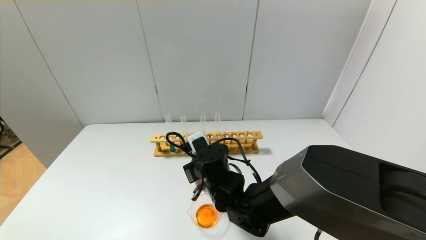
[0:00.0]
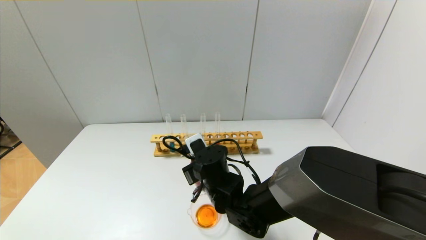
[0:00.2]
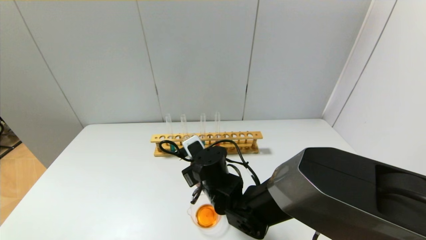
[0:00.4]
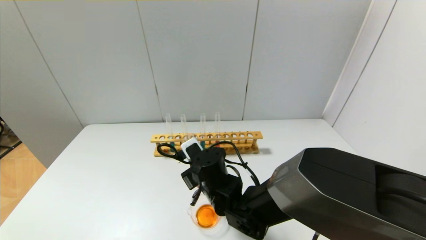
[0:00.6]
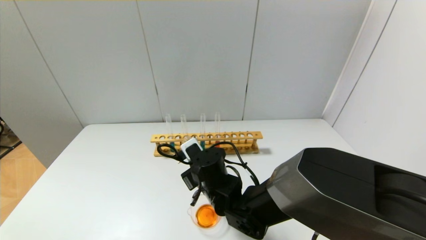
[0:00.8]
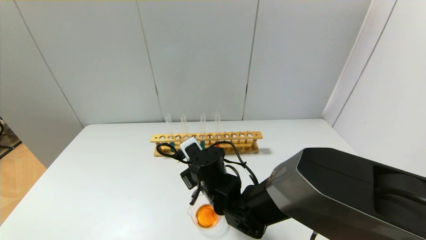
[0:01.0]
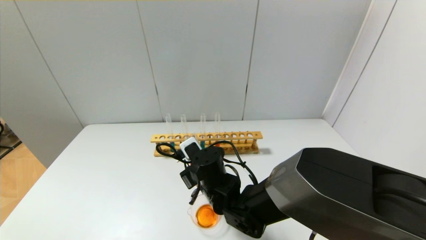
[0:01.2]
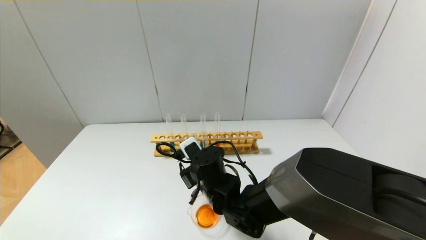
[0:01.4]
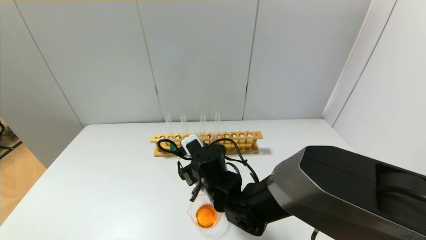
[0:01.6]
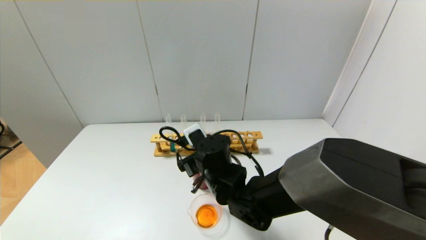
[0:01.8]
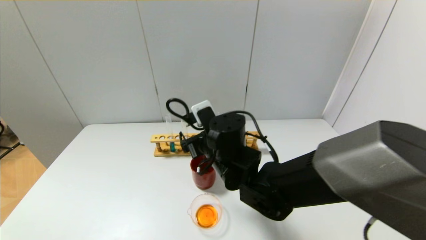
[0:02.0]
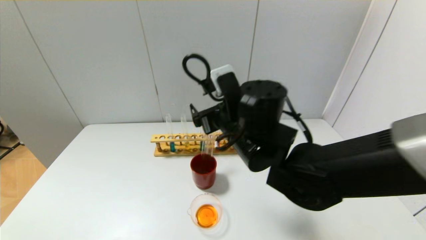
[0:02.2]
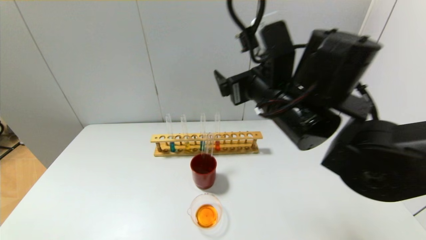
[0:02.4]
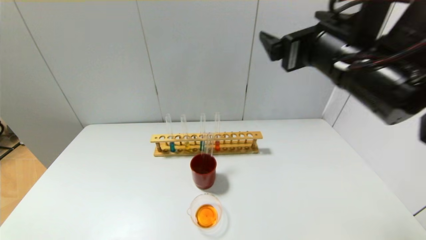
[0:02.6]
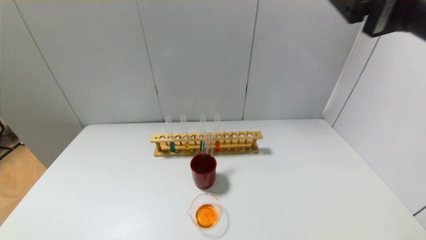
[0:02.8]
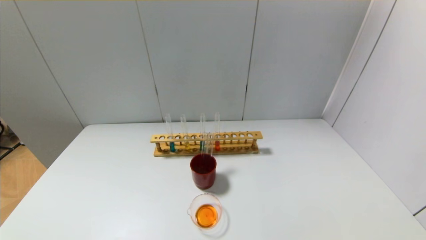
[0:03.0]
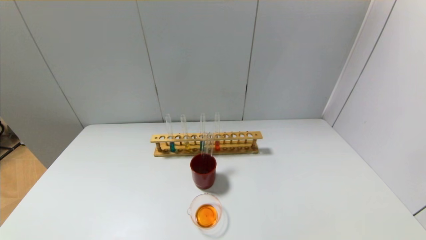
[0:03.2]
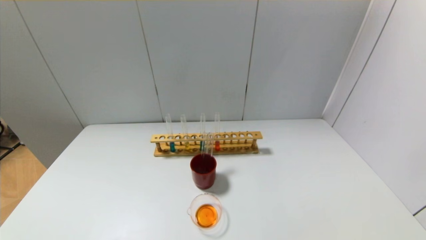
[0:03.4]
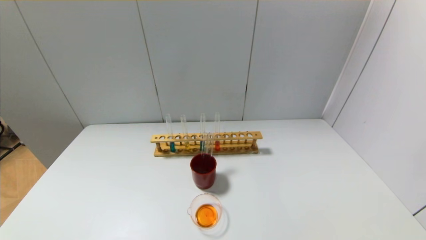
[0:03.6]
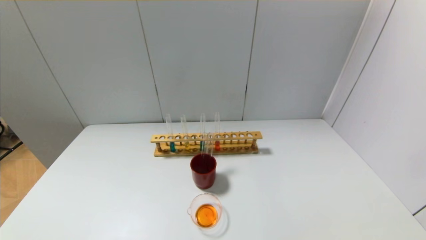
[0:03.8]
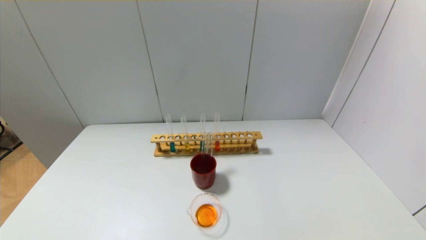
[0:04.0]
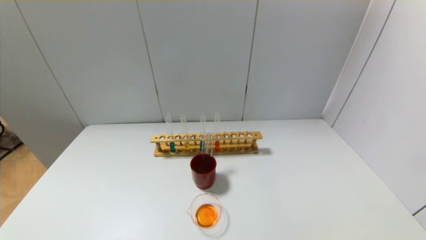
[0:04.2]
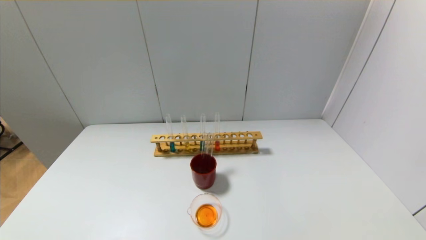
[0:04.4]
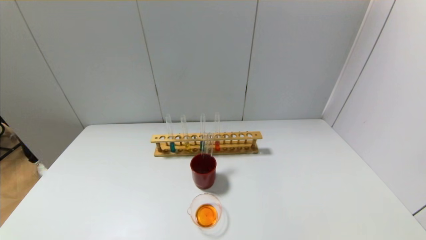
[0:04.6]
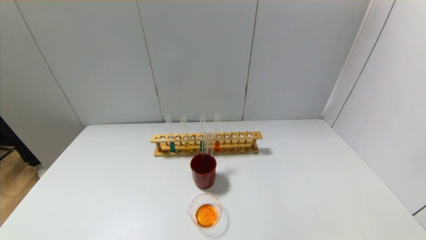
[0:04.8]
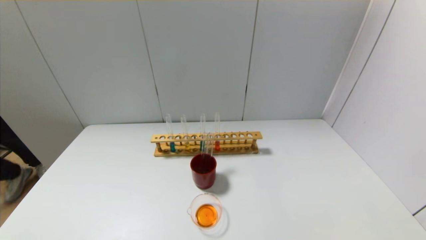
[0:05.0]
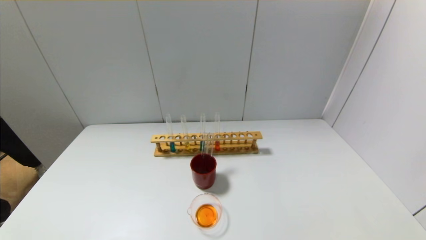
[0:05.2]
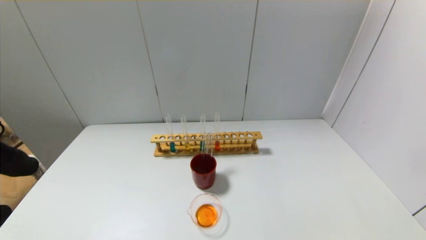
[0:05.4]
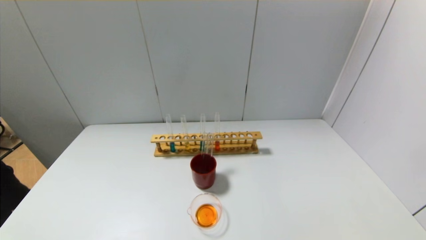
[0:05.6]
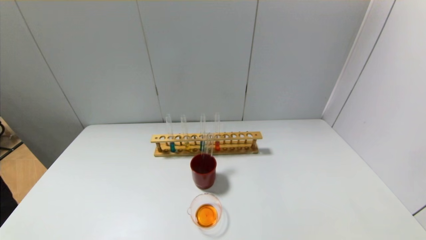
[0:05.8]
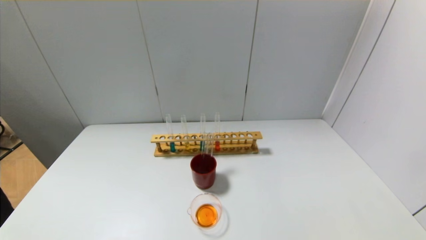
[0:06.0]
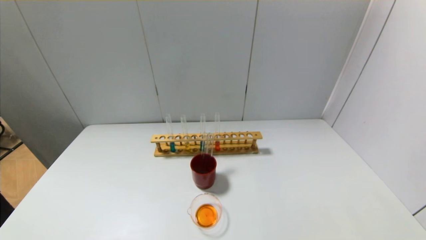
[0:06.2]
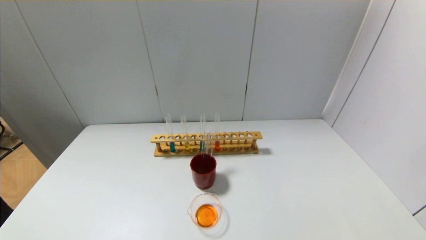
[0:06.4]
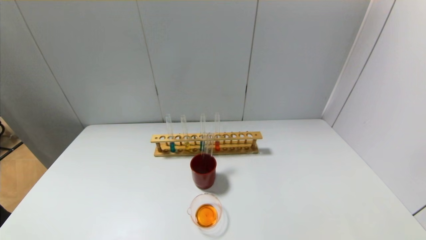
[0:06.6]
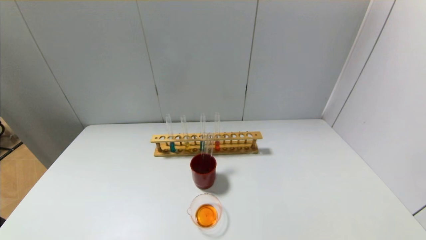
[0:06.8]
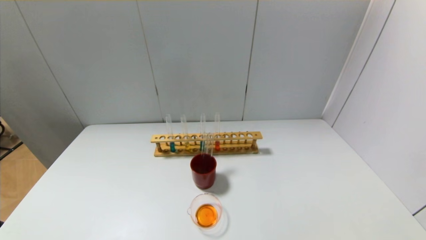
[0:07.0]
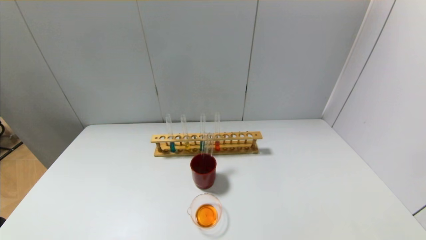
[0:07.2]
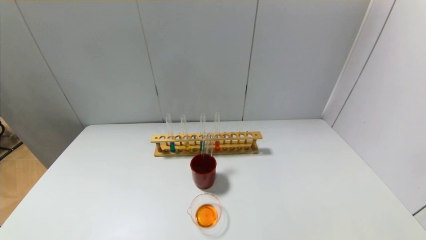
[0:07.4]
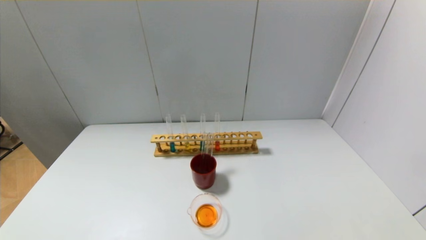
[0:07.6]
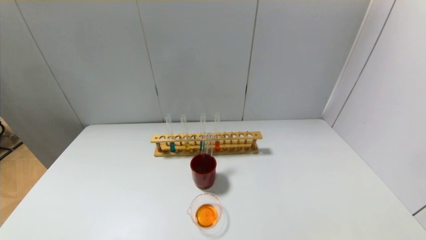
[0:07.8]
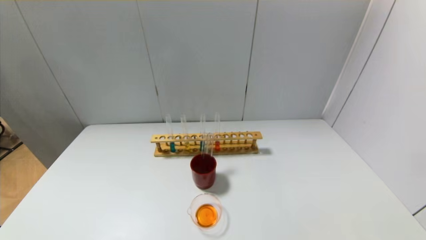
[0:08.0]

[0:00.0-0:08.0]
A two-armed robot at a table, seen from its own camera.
0:00.0 to 0:01.6: The right gripper opens its fingers.
0:01.6 to 0:03.2: The right gripper shifts roughly 50 cm upward, to the right and backward.

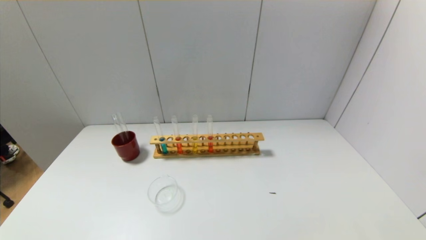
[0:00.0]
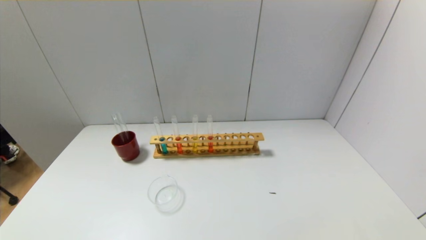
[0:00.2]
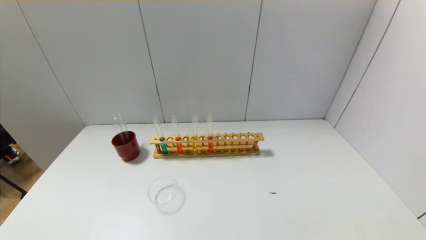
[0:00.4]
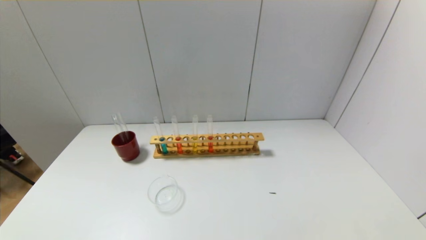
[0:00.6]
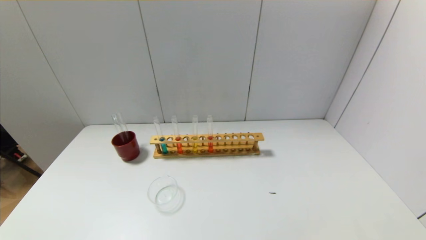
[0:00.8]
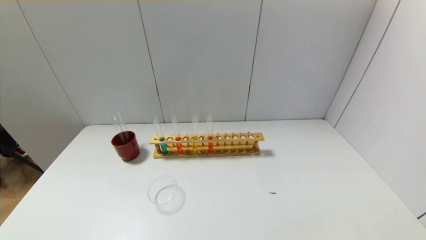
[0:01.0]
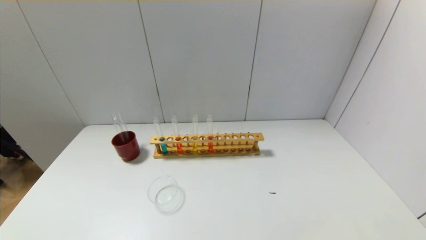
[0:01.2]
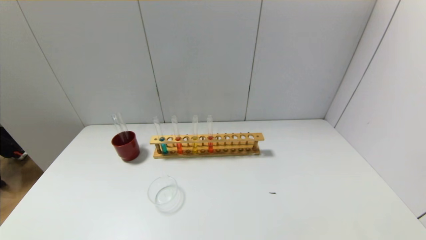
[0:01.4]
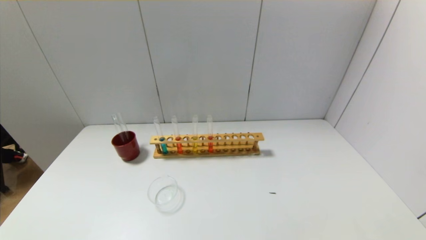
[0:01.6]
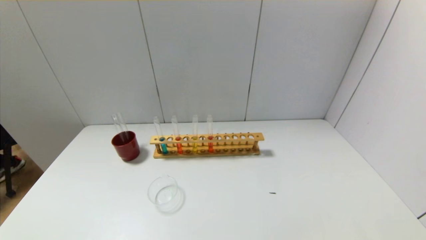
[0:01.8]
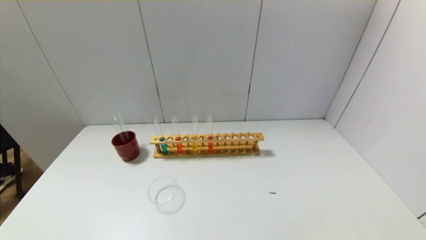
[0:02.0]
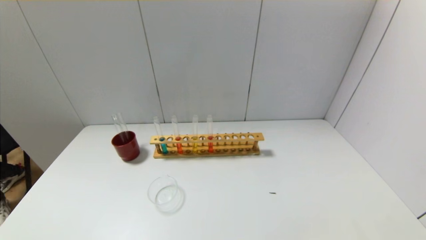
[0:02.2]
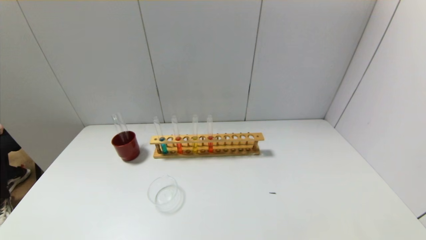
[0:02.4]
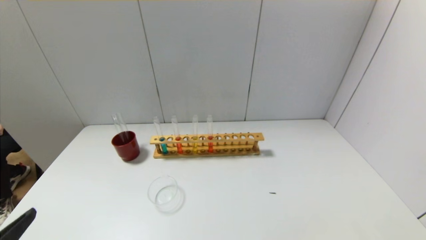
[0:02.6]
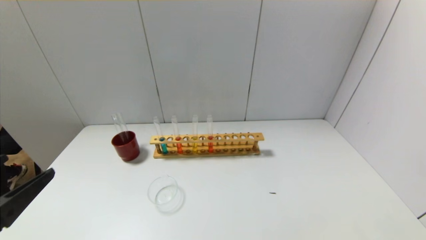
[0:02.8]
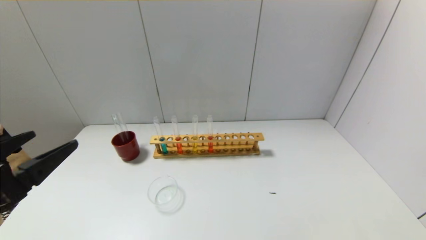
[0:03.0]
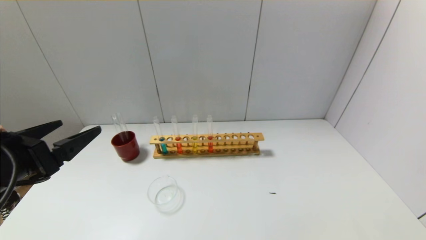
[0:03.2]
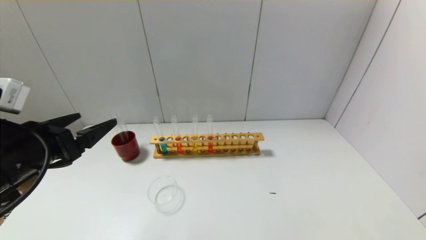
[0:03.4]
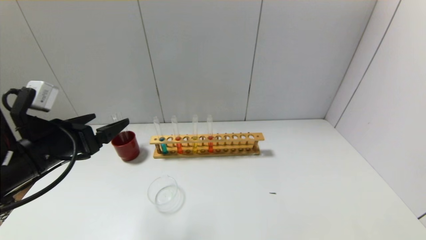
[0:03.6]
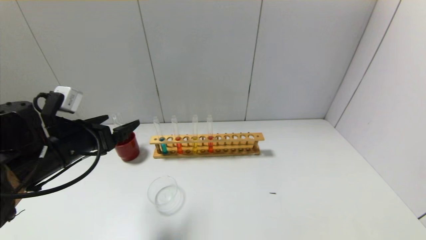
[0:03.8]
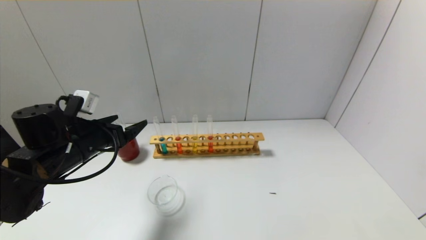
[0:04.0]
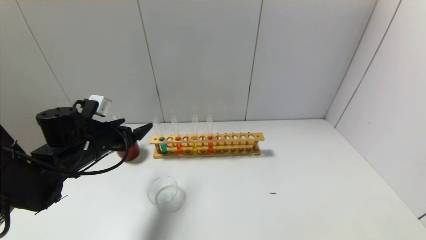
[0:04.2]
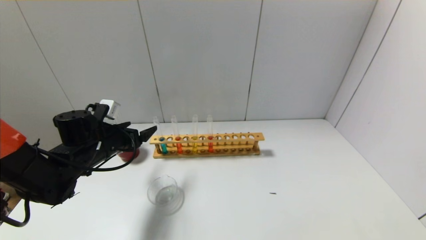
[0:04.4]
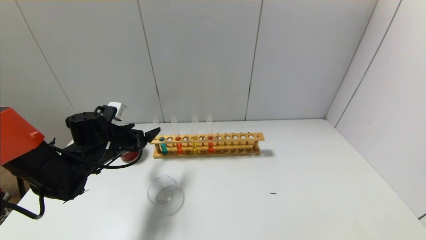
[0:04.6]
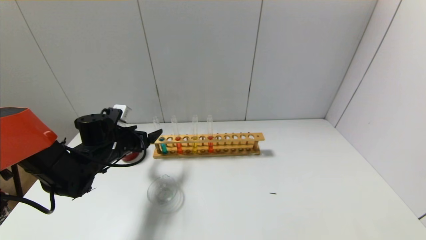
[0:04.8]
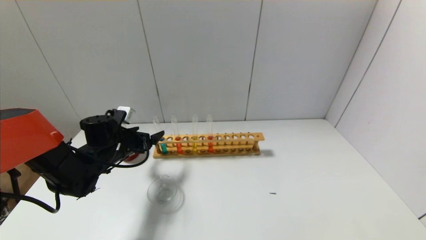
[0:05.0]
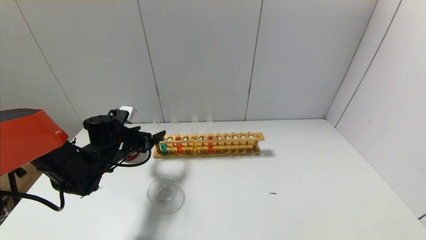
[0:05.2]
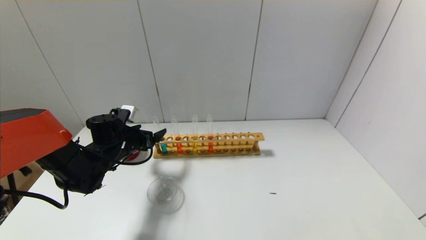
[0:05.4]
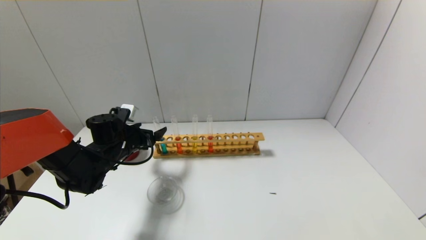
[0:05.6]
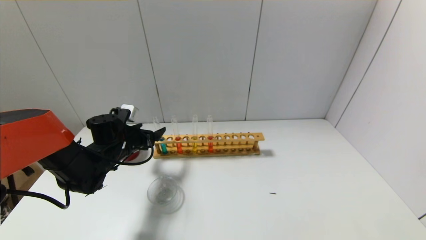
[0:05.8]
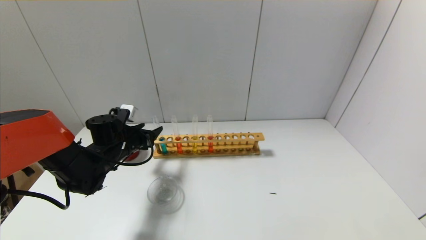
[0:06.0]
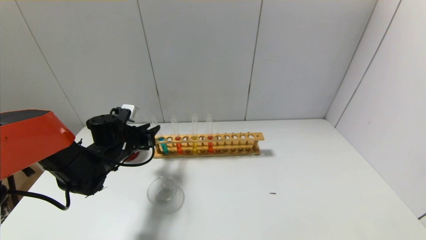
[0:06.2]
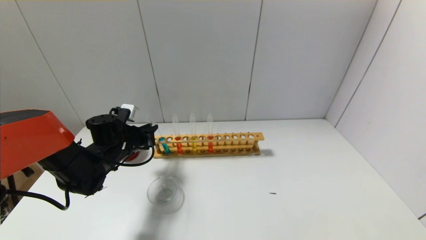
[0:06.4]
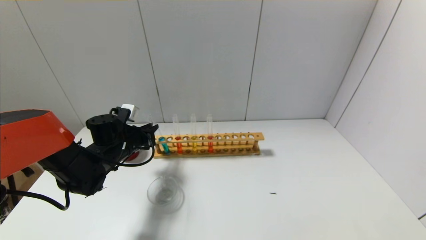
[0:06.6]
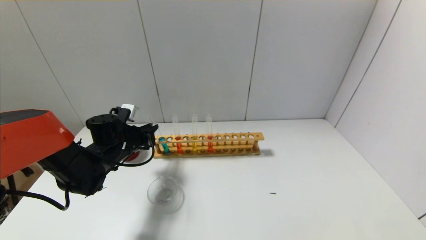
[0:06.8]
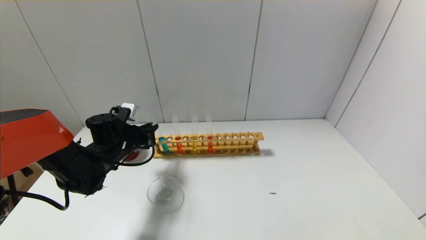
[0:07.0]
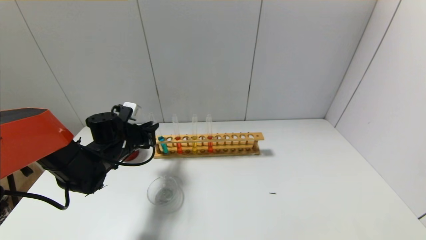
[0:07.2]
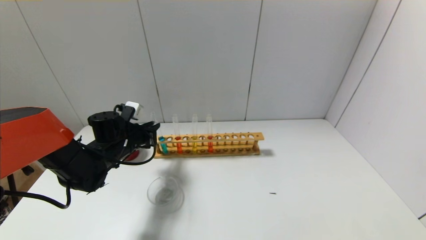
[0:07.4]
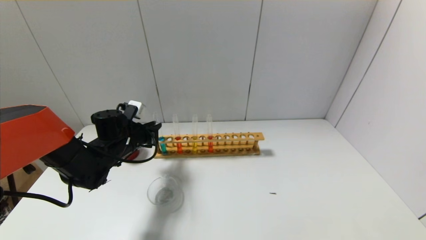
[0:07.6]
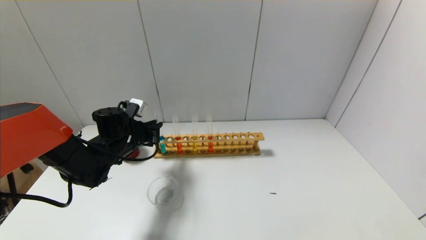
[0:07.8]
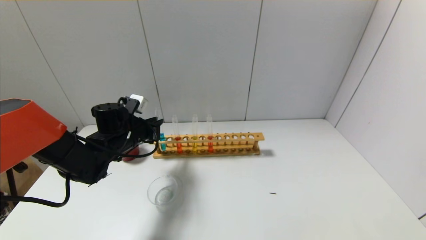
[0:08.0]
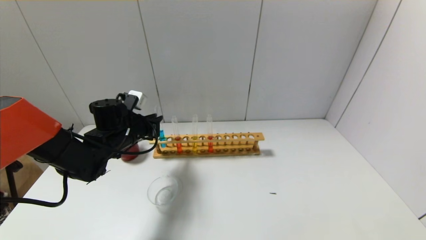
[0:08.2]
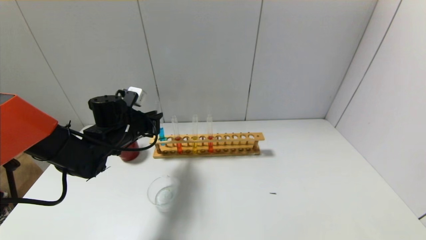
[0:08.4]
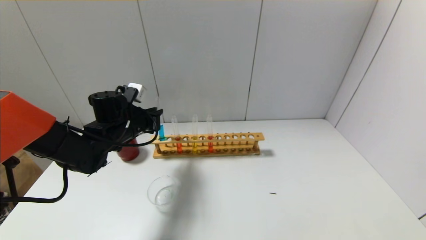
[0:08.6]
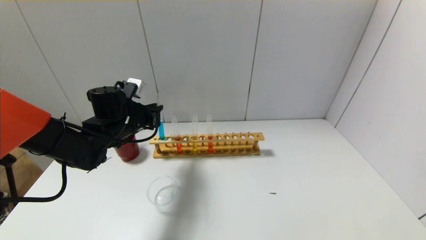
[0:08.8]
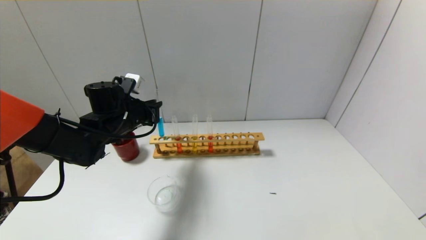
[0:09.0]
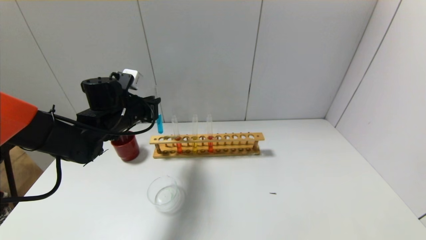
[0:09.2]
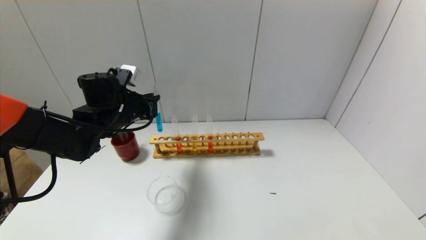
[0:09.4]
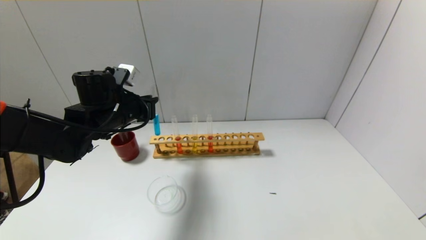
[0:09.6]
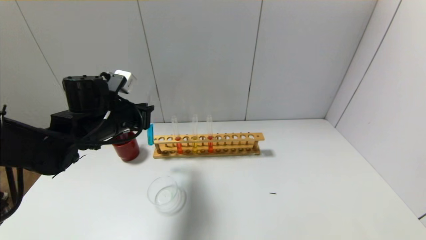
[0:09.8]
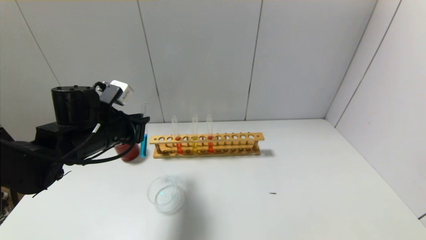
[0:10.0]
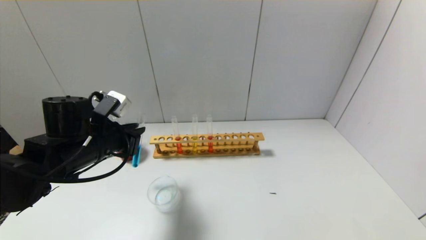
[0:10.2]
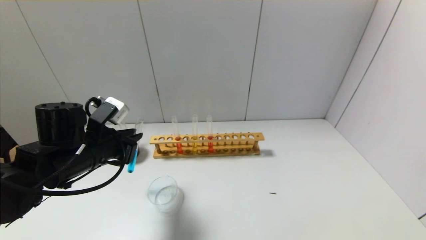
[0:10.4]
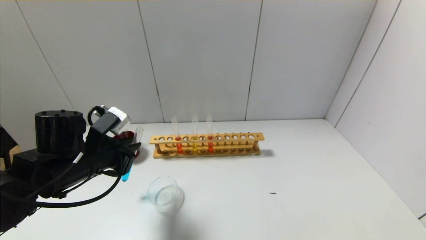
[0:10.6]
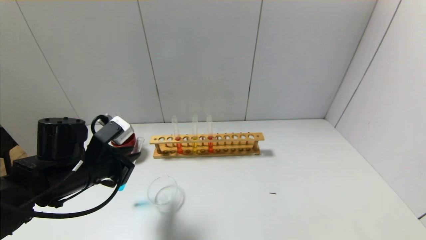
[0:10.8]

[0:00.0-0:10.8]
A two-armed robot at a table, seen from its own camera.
Step, 0:00.0 to 0:06.4: Grasp the blue reagent with the left gripper.
0:00.0 to 0:01.6: The two grippers keep their place.
0:01.6 to 0:03.0: The left gripper travels upward and forward by approximately 20 cm.
0:03.0 to 0:04.6: The left gripper is displaced forward and downward by some 25 cm.
0:04.6 to 0:06.2: The left gripper closes.
0:06.2 to 0:07.8: There are only small adjustments of the grippers.
0:07.8 to 0:09.2: The left gripper heads upward, covering some 5 cm.
0:09.2 to 0:10.8: The left gripper heads backward, covering about 15 cm.
